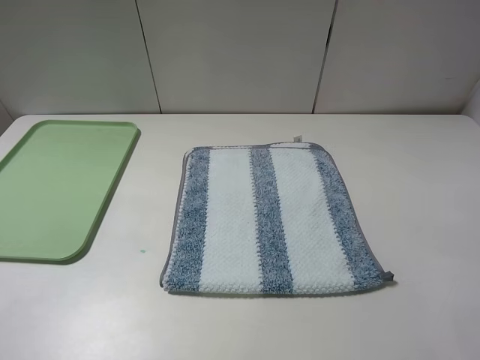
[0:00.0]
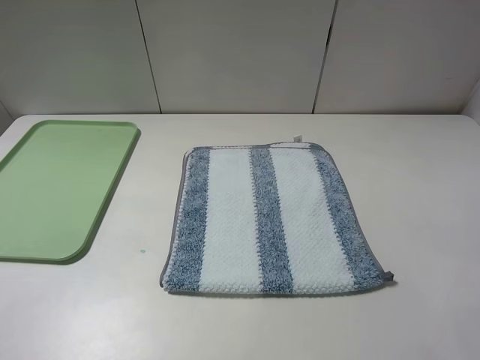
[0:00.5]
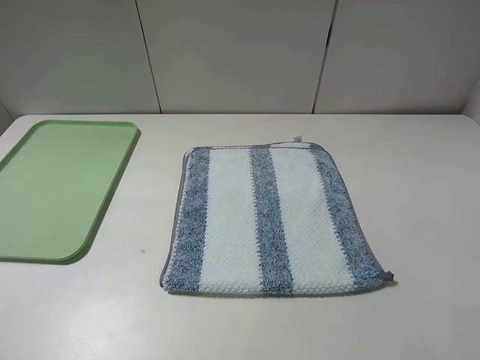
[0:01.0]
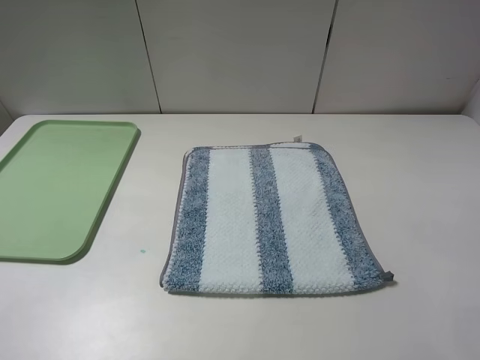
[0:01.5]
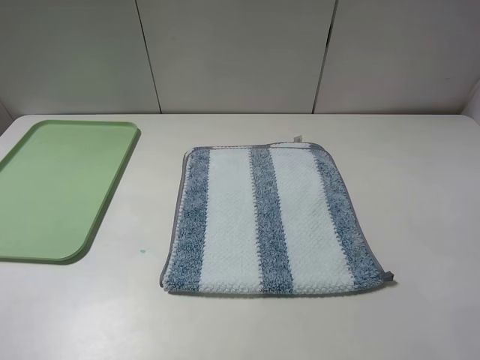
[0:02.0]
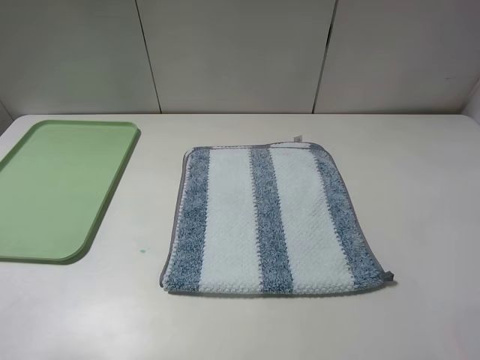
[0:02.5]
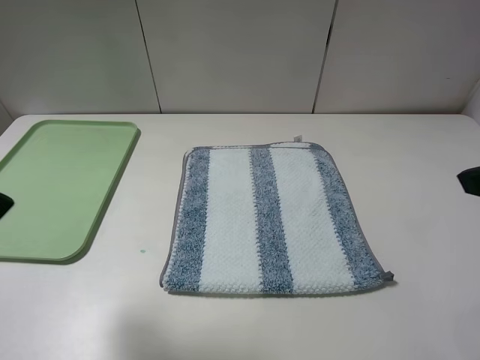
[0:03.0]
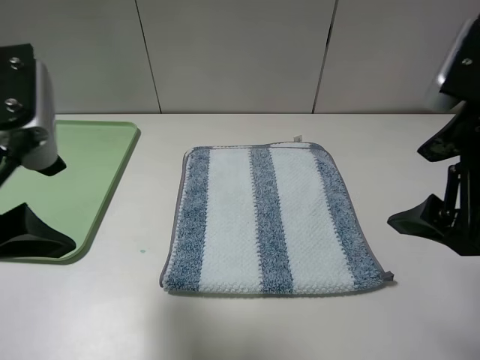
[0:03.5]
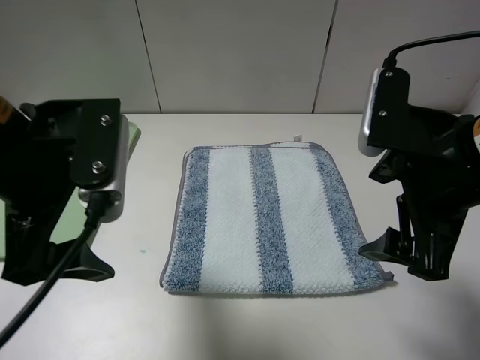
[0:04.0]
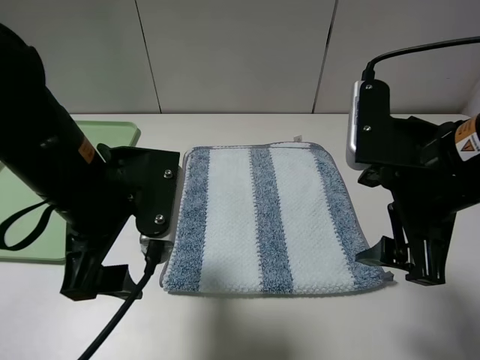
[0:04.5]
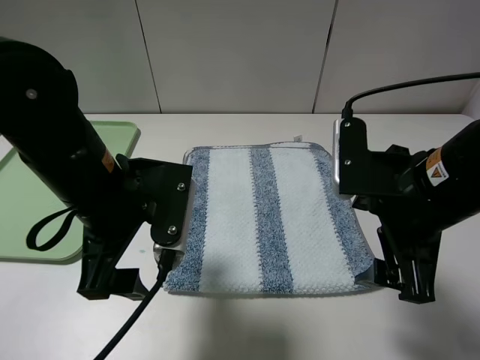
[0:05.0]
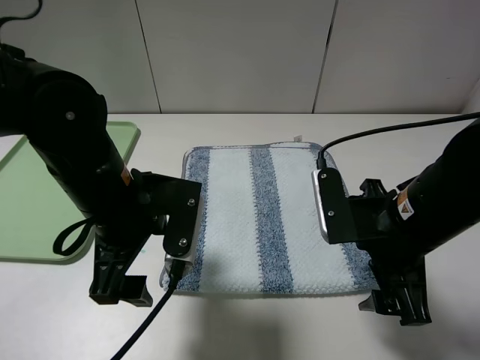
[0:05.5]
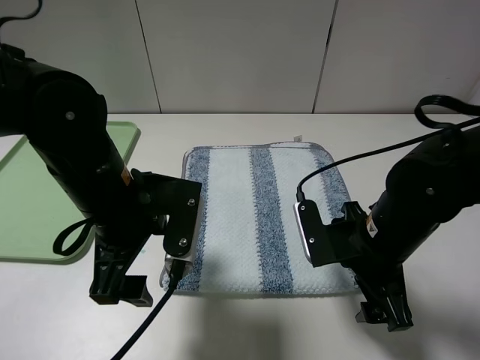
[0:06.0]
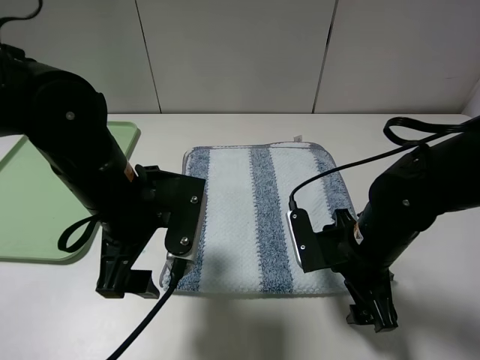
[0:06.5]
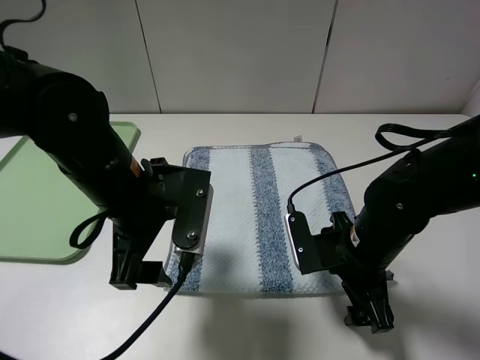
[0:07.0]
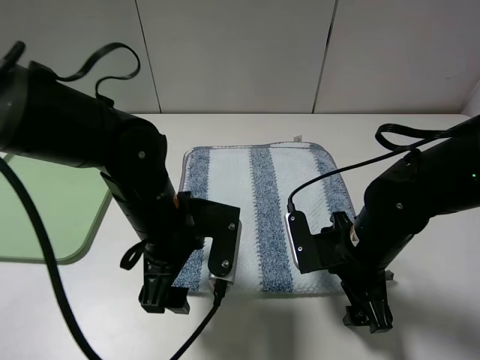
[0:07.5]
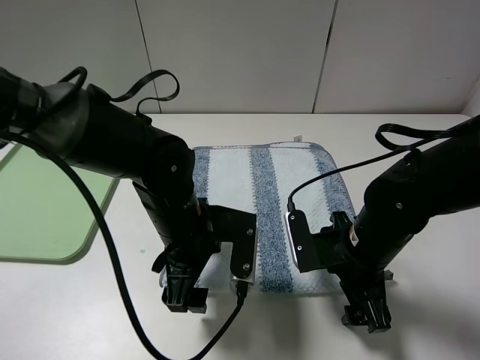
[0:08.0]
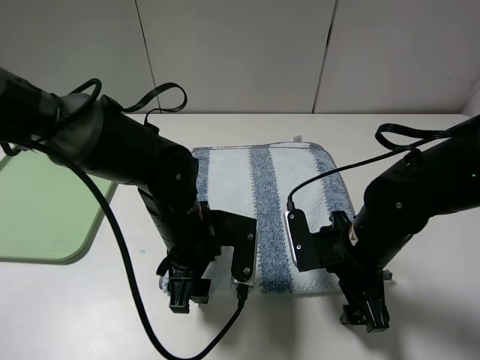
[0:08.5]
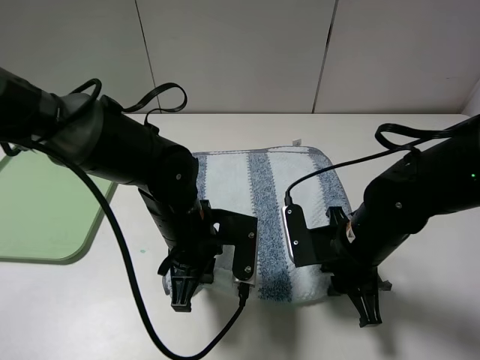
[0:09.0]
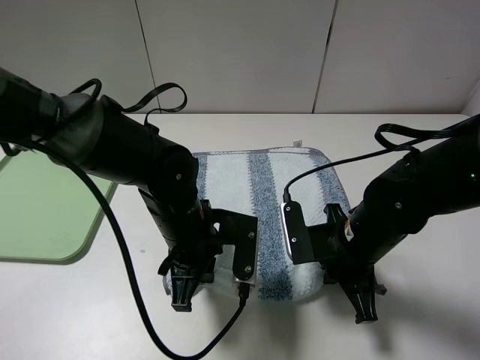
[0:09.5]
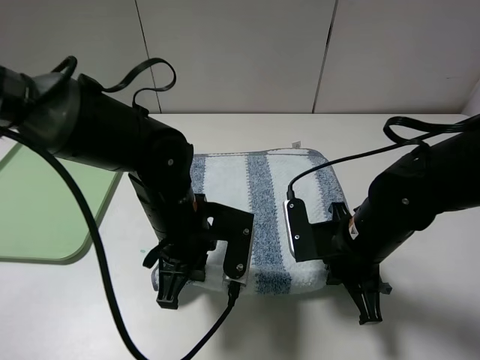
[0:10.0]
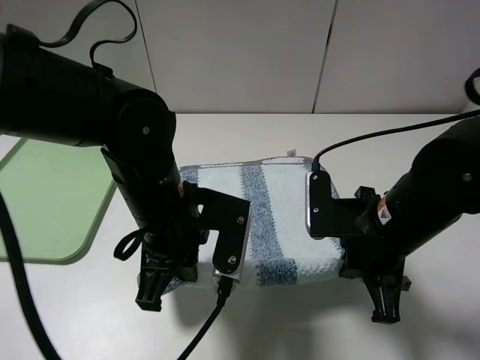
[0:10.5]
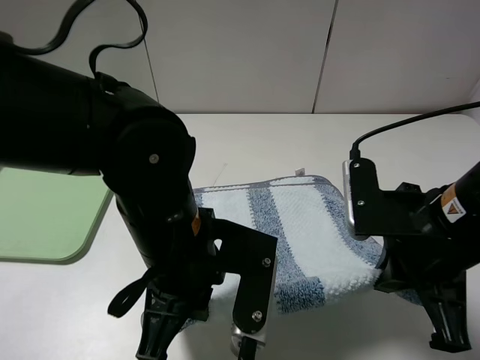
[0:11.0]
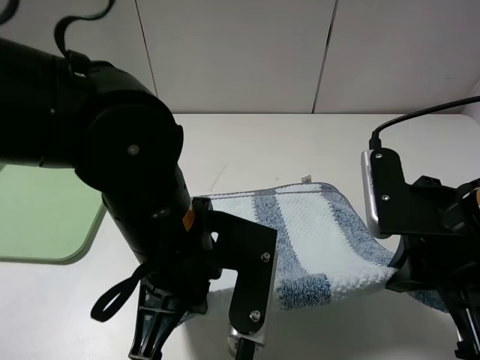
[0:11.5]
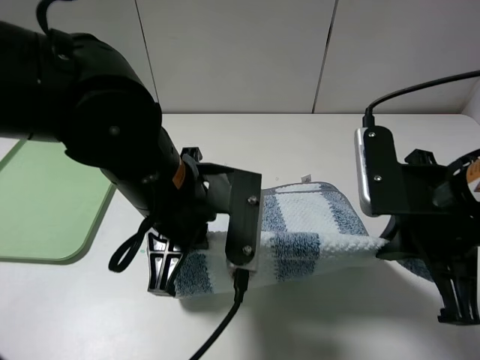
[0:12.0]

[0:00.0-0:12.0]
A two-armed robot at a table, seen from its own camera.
Step, 0:00.0 to 0:09.5: Grasp the blue white towel with the left gripper.
0:00.0 to 0:02.0: Neither gripper changes place.
0:02.0 to 0:04.0: The right gripper is displaced forward and to the left by approximately 20 cm; the left gripper heads forward and to the right, covering approximately 20 cm.
0:04.0 to 0:06.0: The right gripper travels downward by approximately 15 cm. Meanwhile the left gripper travels downward by approximately 10 cm.
0:06.0 to 0:08.0: The left gripper travels downward and to the right by roughly 10 cm.
0:08.0 to 0:10.0: The right gripper closes its fingers. Meanwhile the left gripper closes its fingers.
0:10.0 to 0:12.0: The right gripper goes about 15 cm upward; the left gripper shifts roughly 10 cm upward.

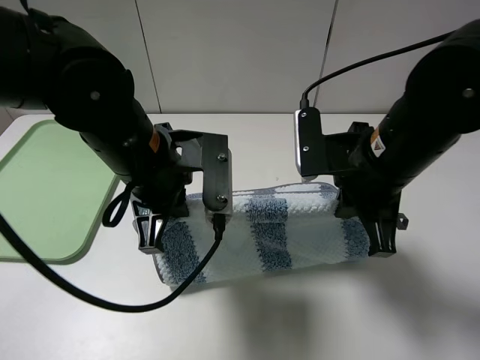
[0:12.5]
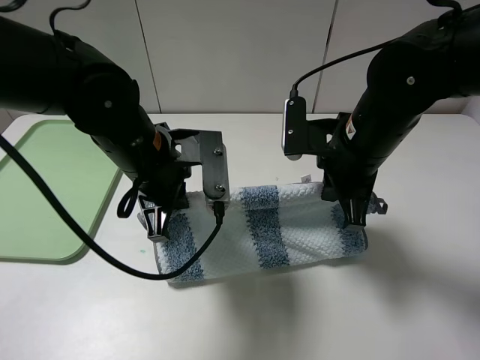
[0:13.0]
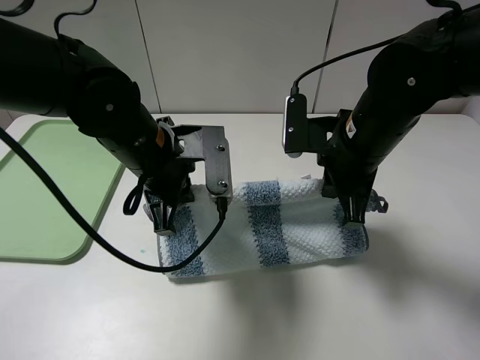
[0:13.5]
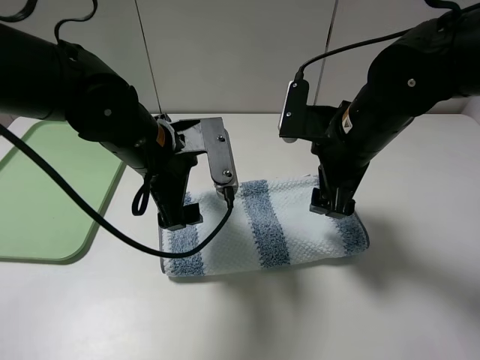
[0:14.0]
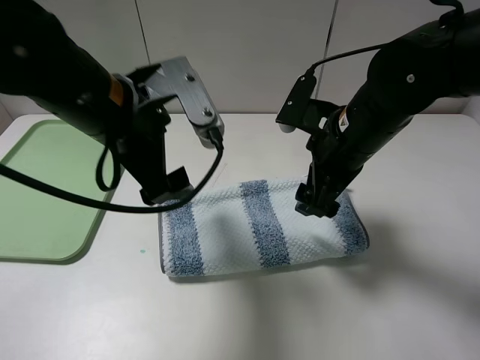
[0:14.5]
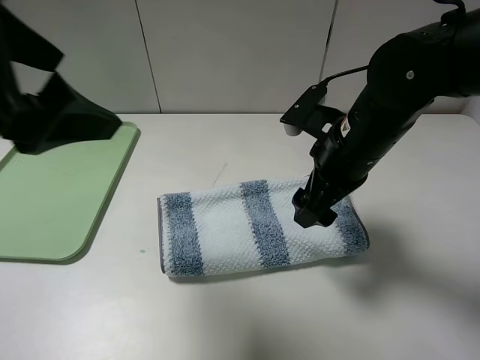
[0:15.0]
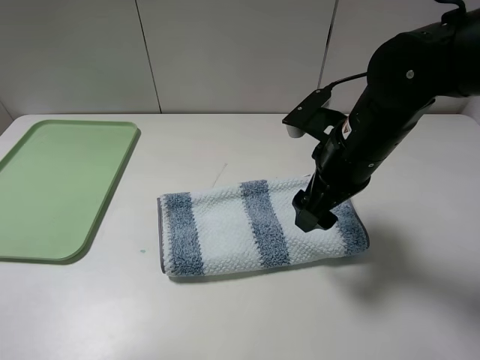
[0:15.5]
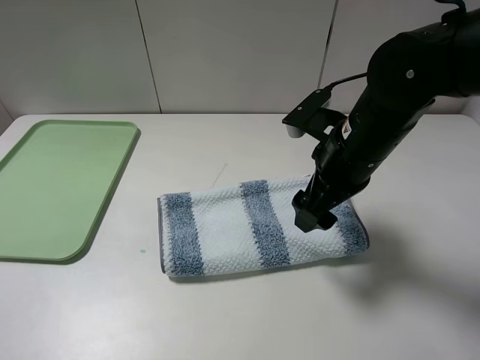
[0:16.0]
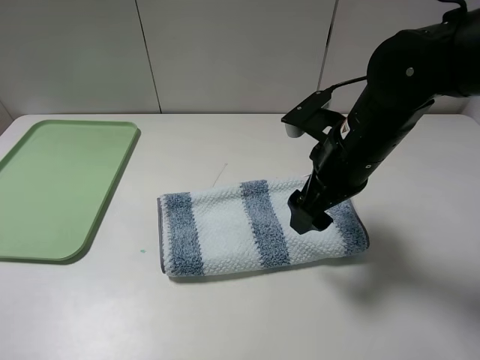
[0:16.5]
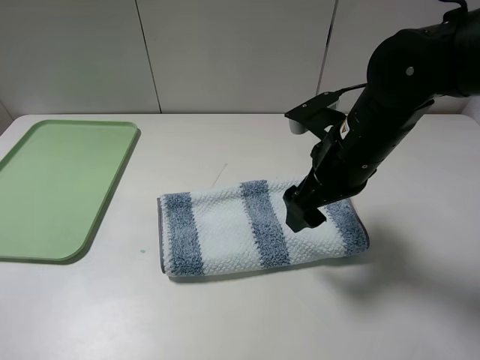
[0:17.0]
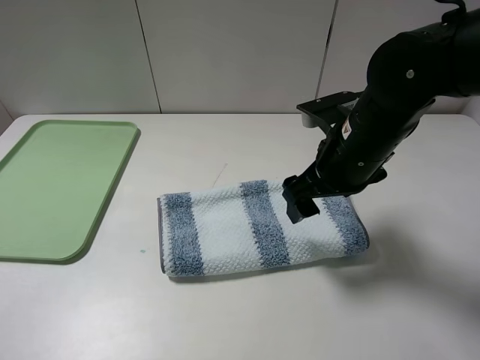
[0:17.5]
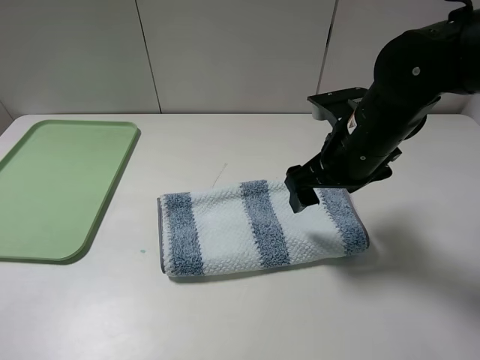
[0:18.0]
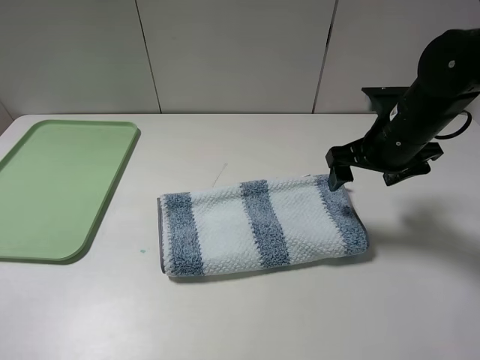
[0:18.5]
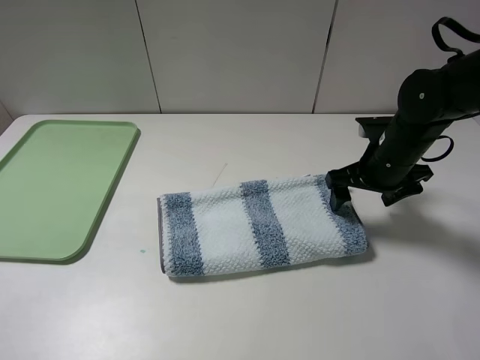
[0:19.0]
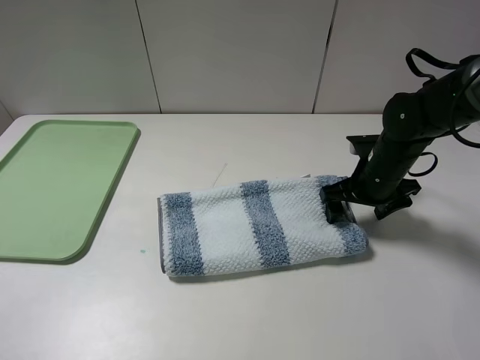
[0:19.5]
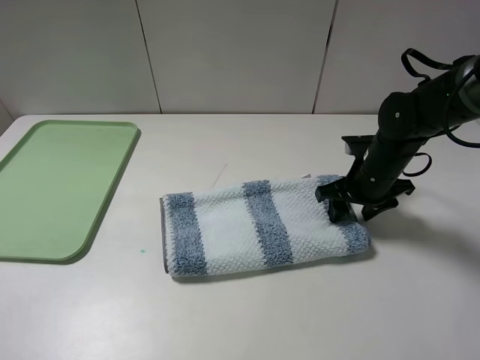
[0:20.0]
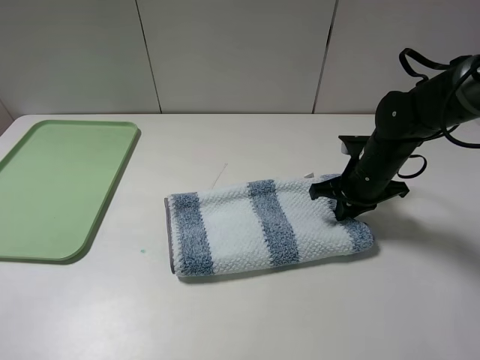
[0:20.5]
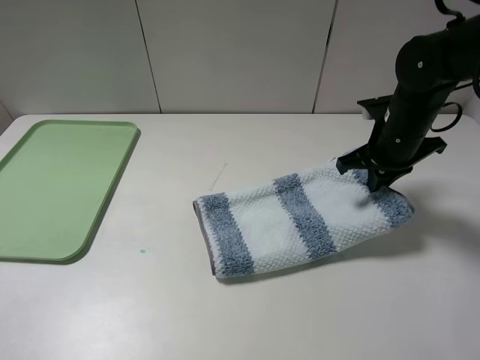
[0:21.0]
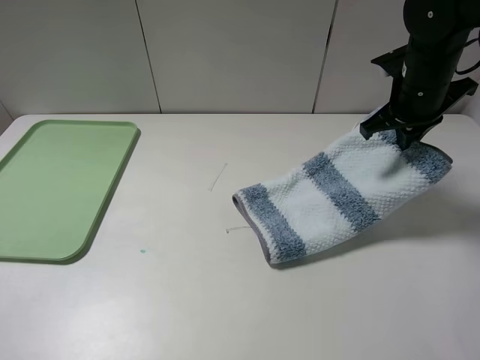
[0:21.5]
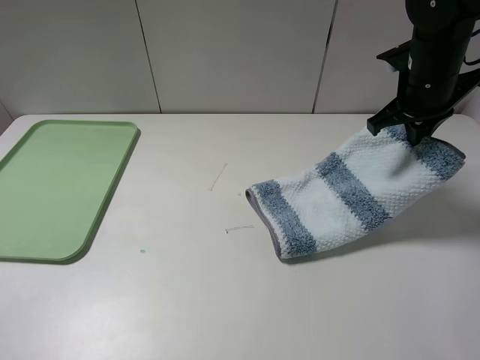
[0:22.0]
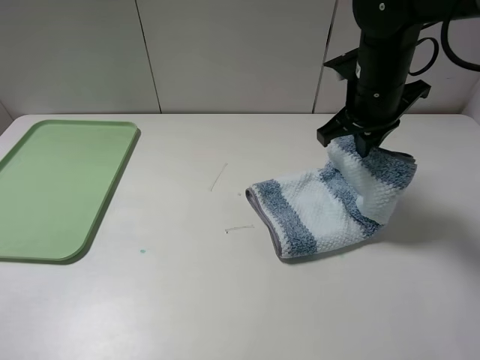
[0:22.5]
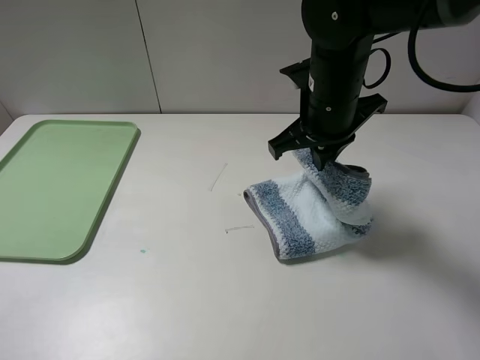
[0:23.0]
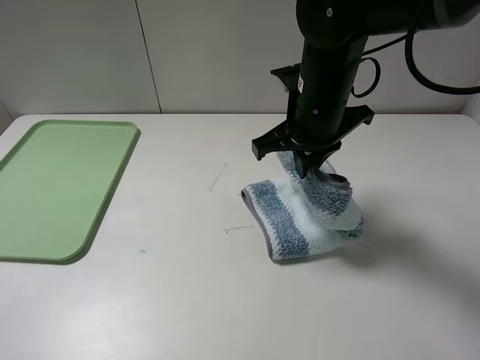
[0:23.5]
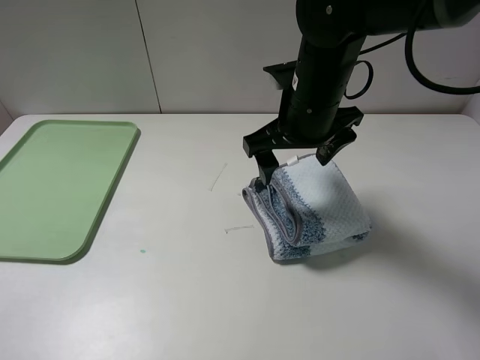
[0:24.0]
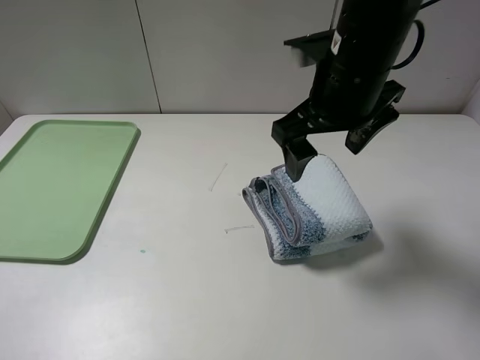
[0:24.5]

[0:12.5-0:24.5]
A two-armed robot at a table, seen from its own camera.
Step, 0:14.5 to 0:20.5: Grasp the blue white towel with the right gripper.
0:12.5 to 0:14.5: The right gripper opens up. Meanwhile the left gripper goes about 5 cm upward, and opens up.
0:14.5 to 0:16.5: The left gripper heads backward and to the left, covering some 30 cm.
0:16.5 to 0:18.5: The right gripper travels to the right and forward by about 10 cm.
0:18.5 to 0:20.5: The right gripper shifts roughly 10 cm downward, and closes up.
0:20.5 to 0:22.5: The right gripper moves upward, roughly 15 cm.
0:22.5 to 0:24.5: The right gripper is displaced backward, upward and to the left by some 10 cm, and opens its fingers.

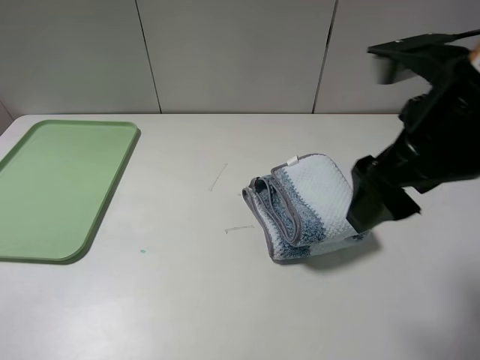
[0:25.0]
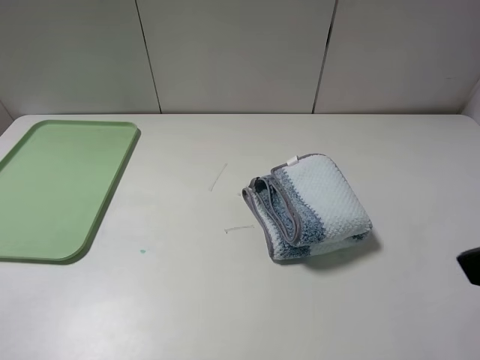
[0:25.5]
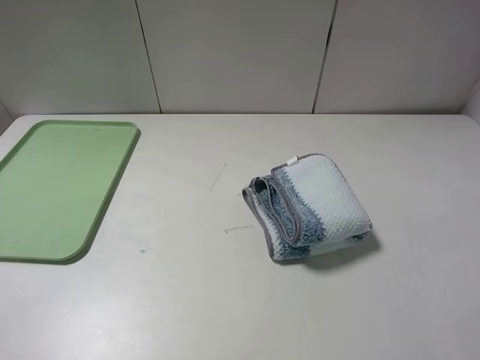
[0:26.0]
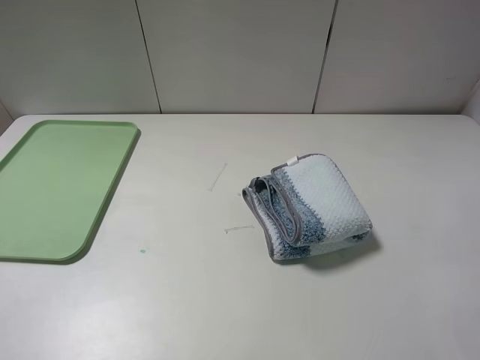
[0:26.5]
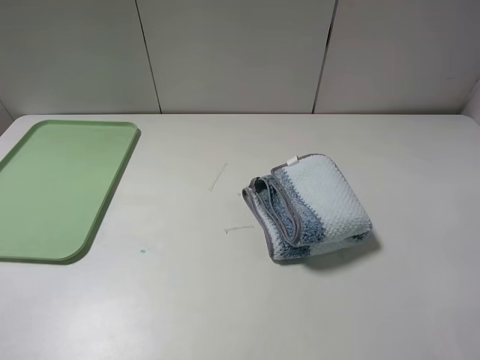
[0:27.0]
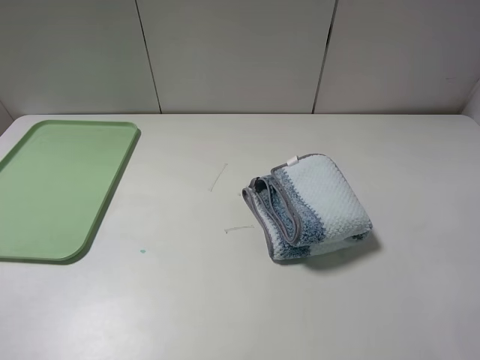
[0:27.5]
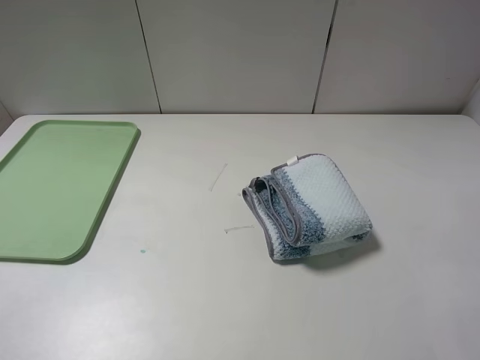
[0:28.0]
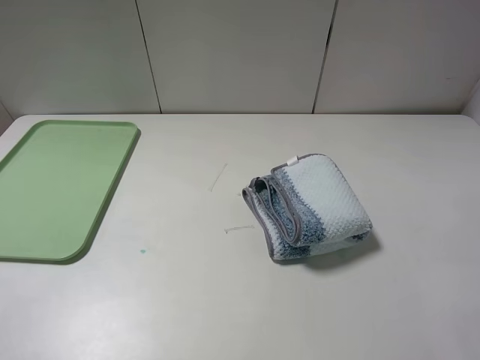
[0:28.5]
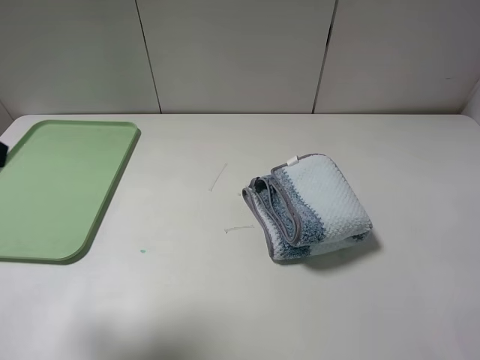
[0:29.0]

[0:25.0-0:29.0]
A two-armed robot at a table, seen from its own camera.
0:25.0 to 0:27.0: The right gripper goes about 20 cm backward and to the right.
0:27.0 to 0:29.0: The left gripper shifts approximately 15 cm forward.
